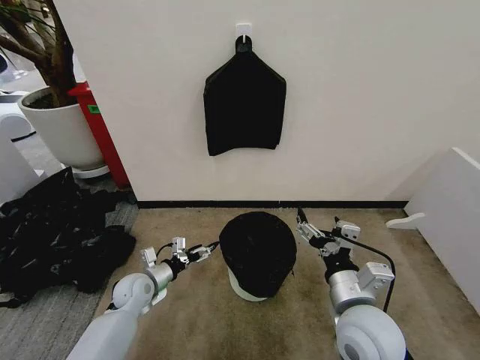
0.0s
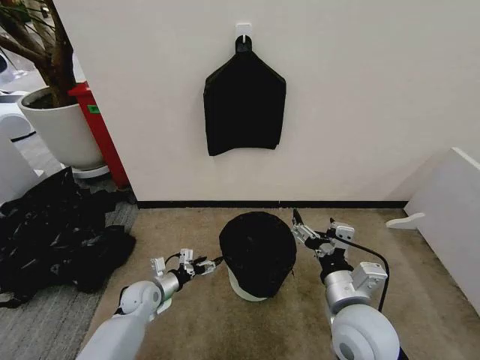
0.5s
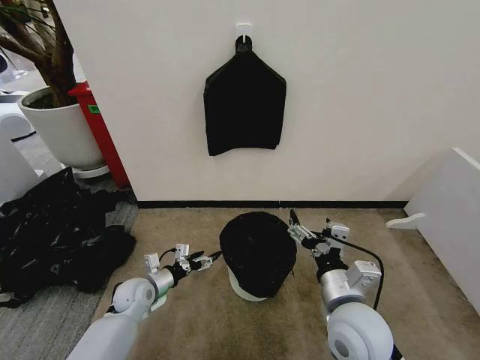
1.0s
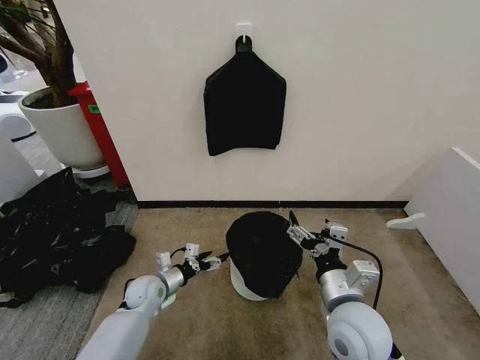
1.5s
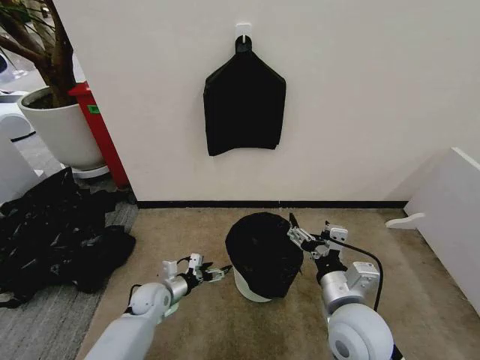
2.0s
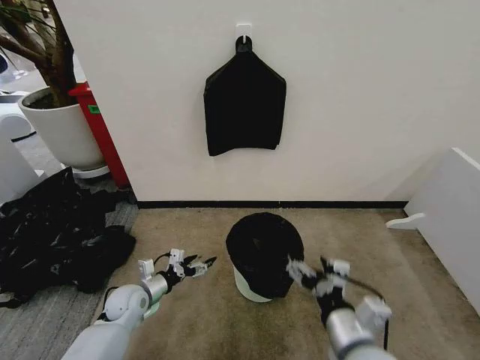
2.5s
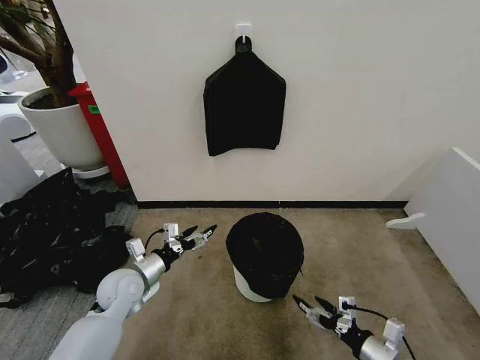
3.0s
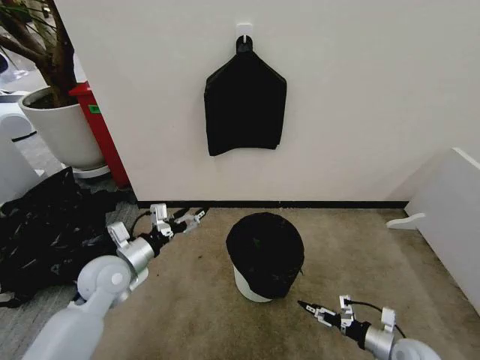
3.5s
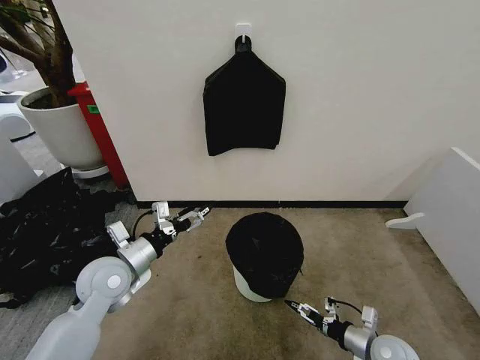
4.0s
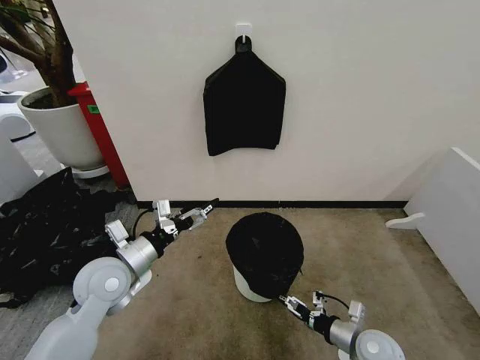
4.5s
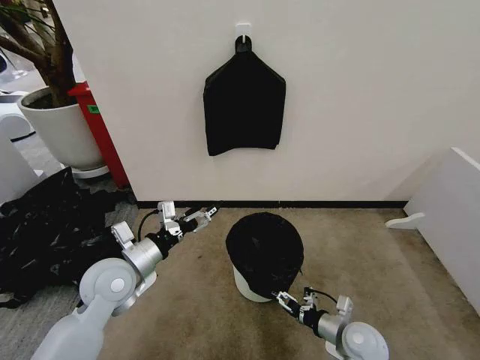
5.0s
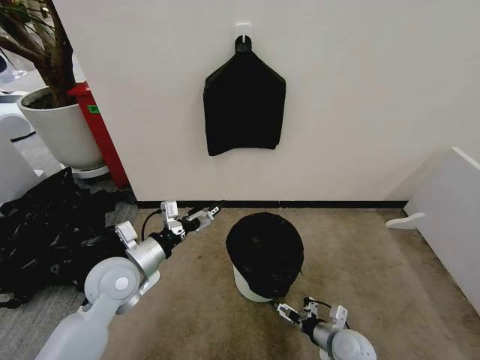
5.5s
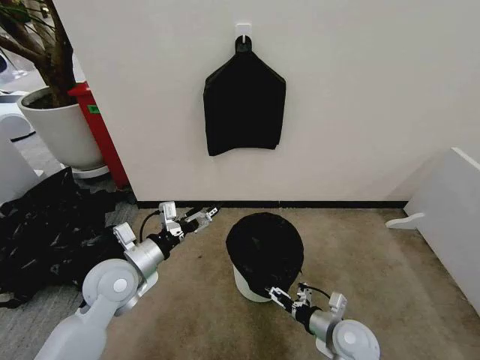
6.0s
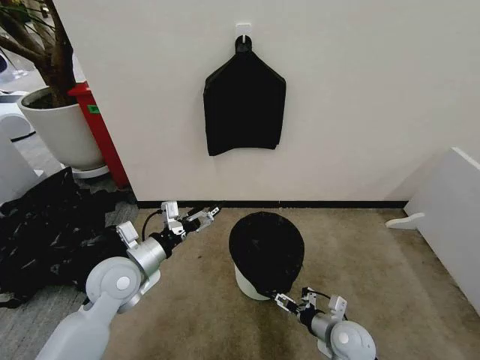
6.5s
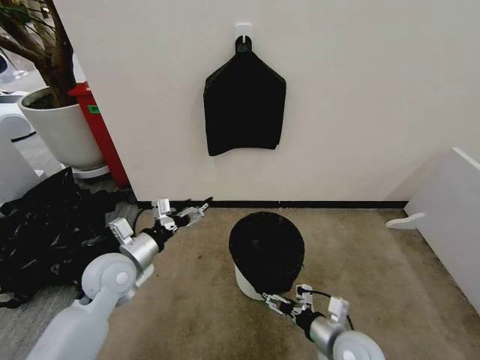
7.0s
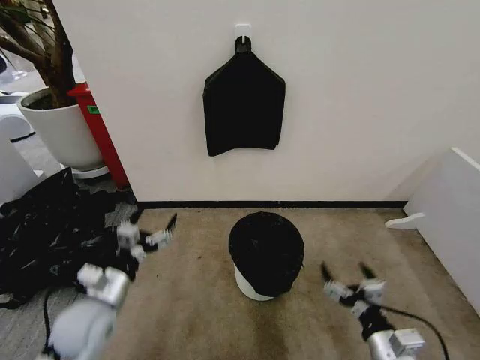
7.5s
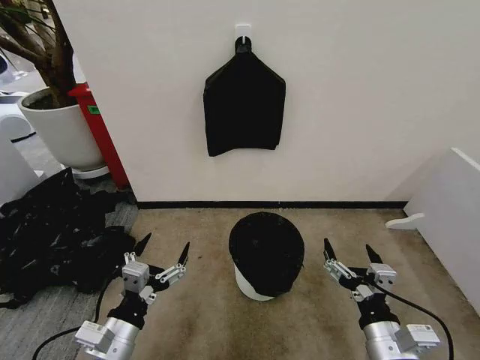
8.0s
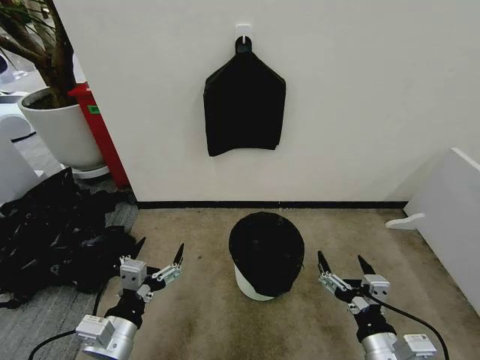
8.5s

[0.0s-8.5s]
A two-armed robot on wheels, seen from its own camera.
Task of the whole recording: Place the garbage bag over the trash bin.
0.0s to 2.0s: The left gripper shifts by some 5 cm.
2.0s to 4.0s: The right gripper moves downward and to the right, roughly 25 cm. The left gripper moves upward, approximately 20 cm.
4.0s to 6.5s: The right gripper heads to the left, covering roughly 10 cm.
6.5s to 8.5s: The right gripper travels upward and backward by about 20 cm, while the left gripper moves backward, roughly 15 cm.

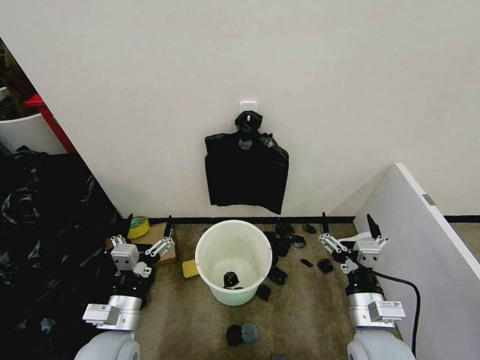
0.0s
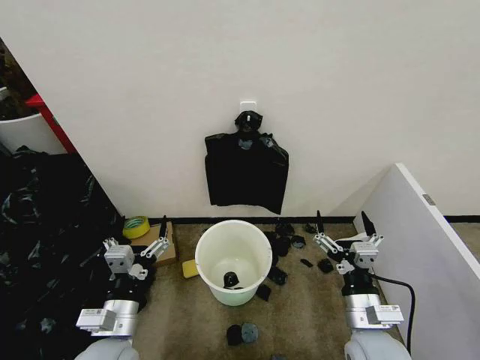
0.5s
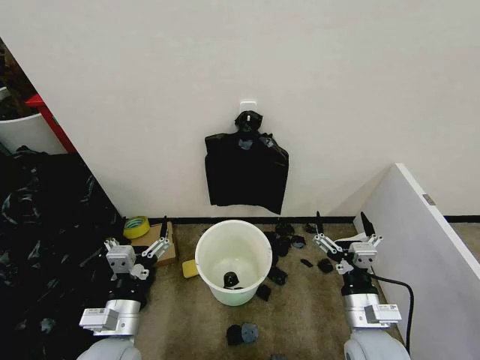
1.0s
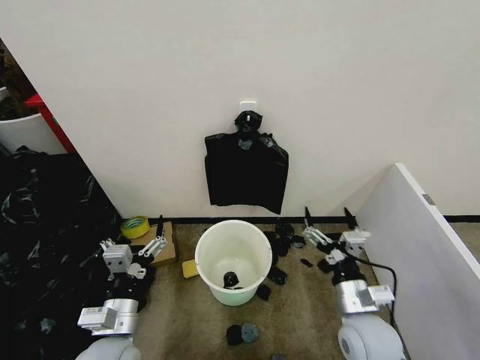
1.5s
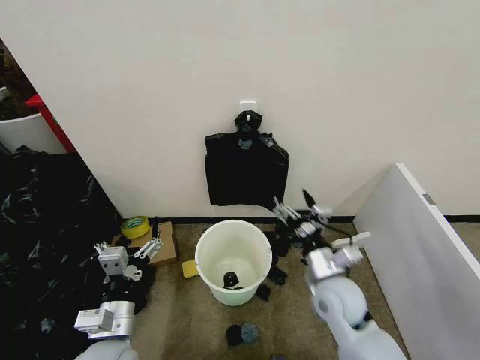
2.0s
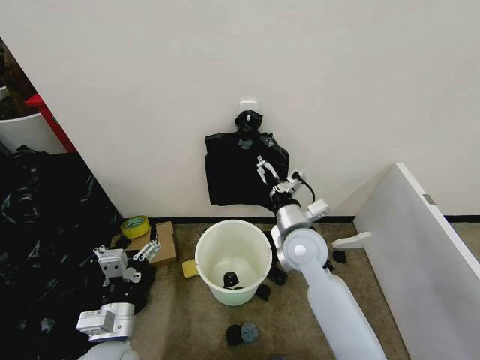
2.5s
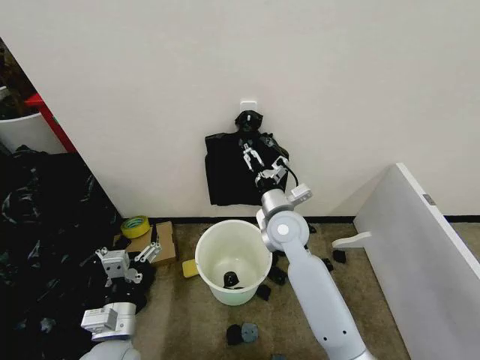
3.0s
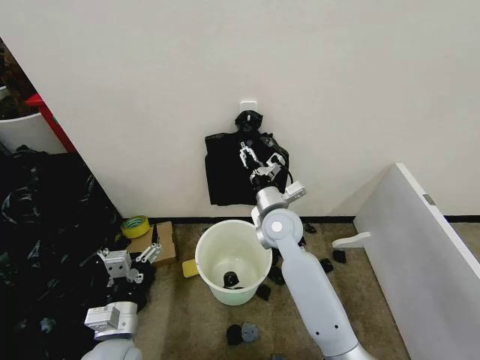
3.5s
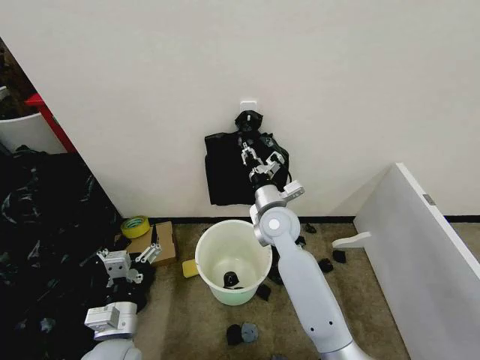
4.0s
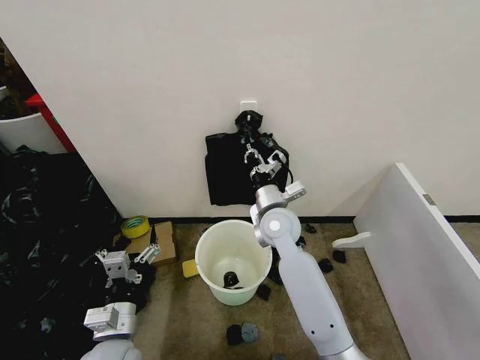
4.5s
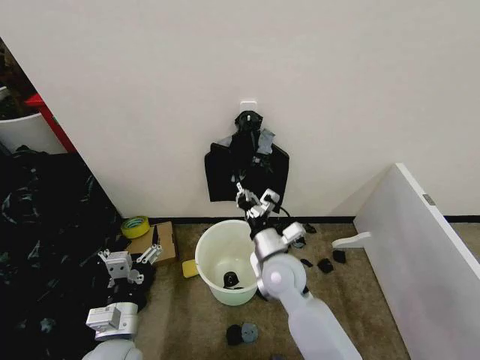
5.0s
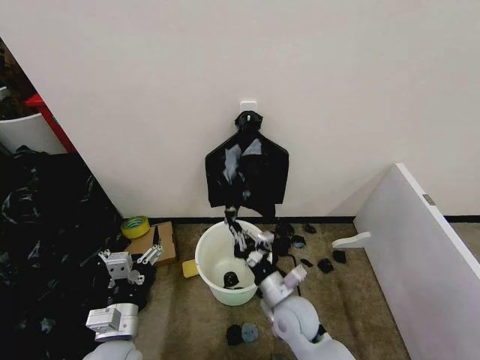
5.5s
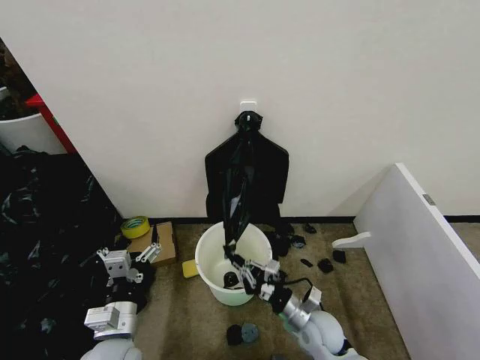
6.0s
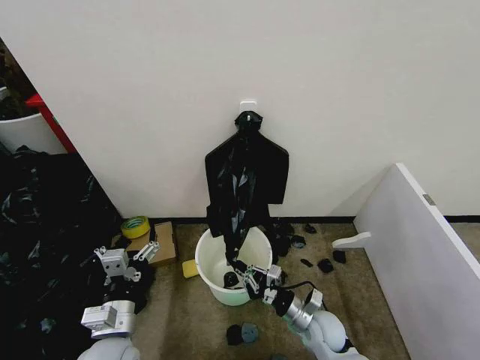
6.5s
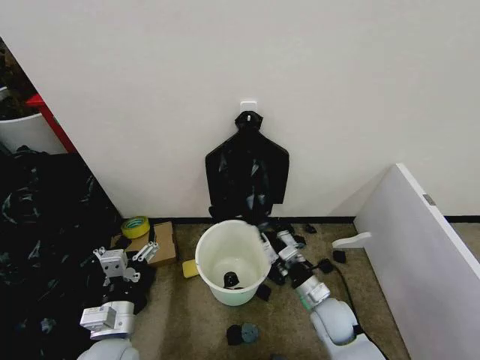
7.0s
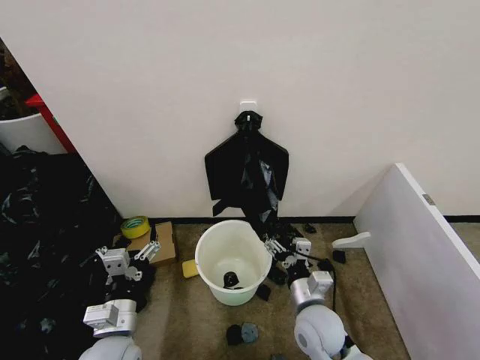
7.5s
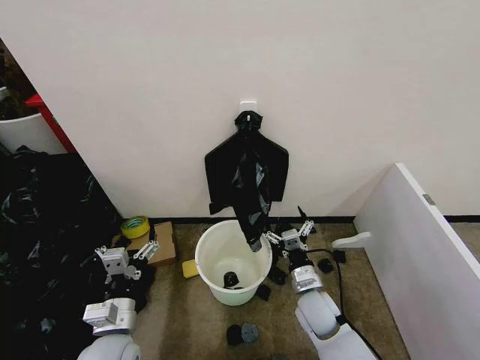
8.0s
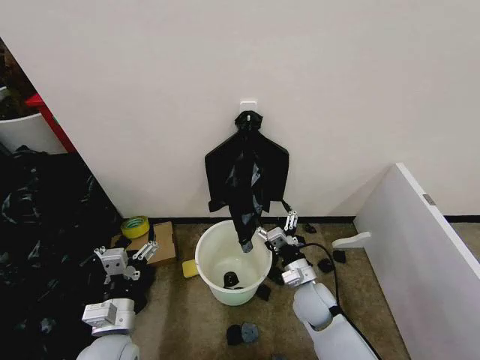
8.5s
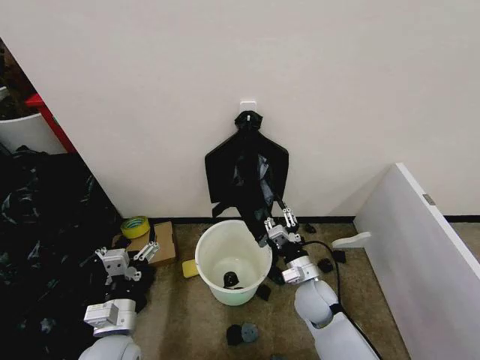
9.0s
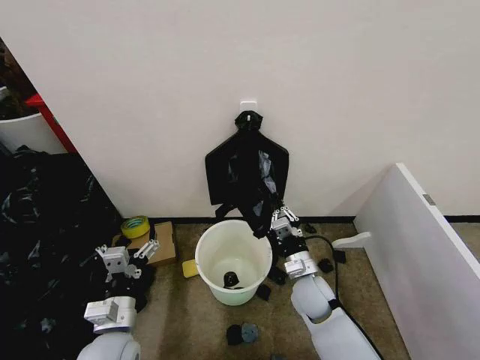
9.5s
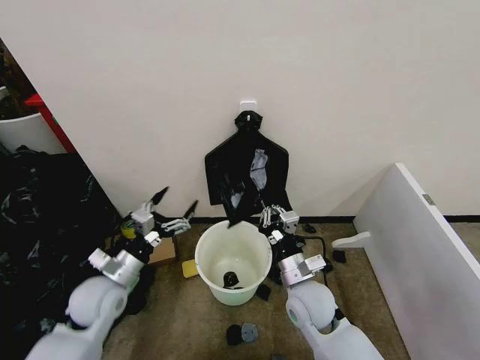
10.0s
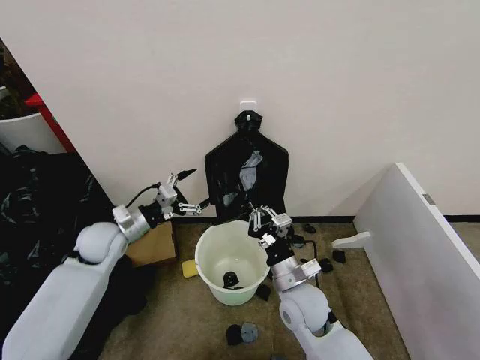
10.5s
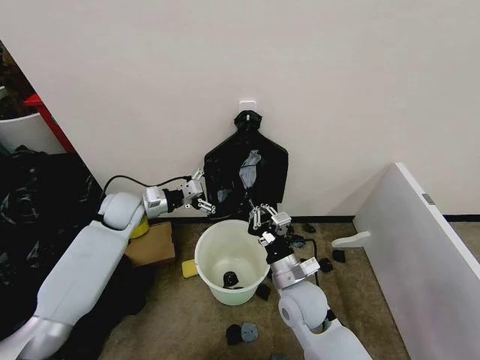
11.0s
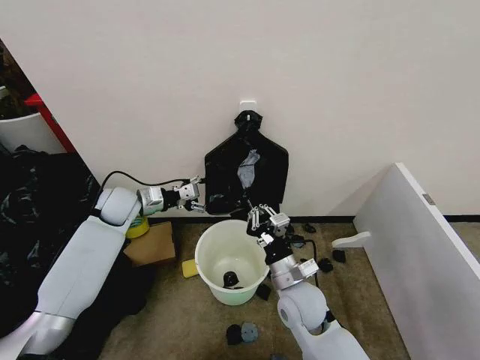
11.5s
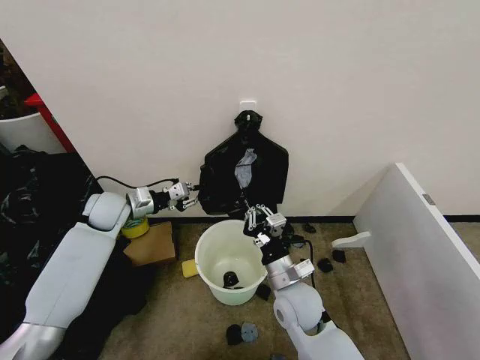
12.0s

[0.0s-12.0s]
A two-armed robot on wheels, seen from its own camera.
Task of the whole recording: Place the garbage bag over the trash bin.
2.0s to 4.0s: The right gripper heads forward and to the left, covering some 20 cm, and closes.
4.0s to 6.0s: The right gripper moves downward, backward and to the right, approximately 25 cm.
6.0s to 8.0s: The right gripper goes upward and returns, roughly 5 cm each way, and opens.
8.0s to 10.0s: The right gripper goes some 10 cm upward, and closes up; the left gripper moves forward and to the left, some 10 cm.
10.0s to 12.0s: The left gripper goes approximately 20 cm forward, and closes.

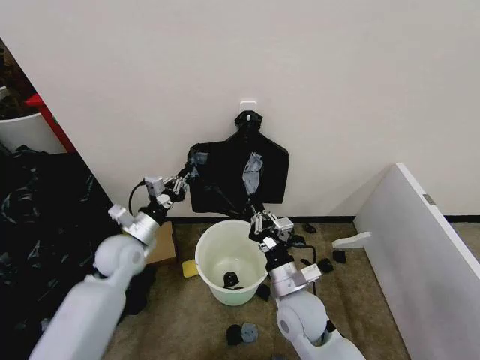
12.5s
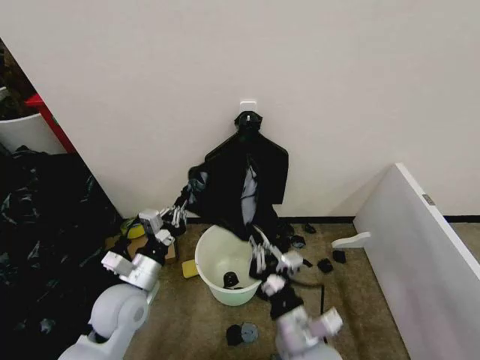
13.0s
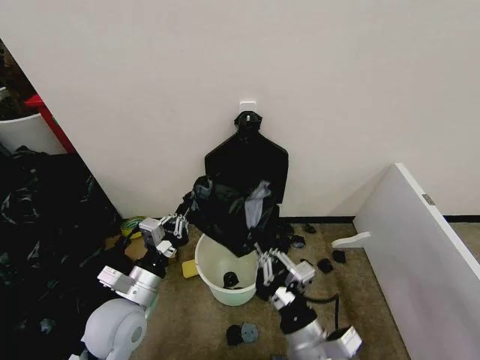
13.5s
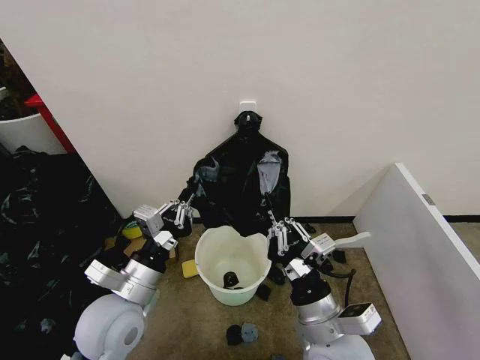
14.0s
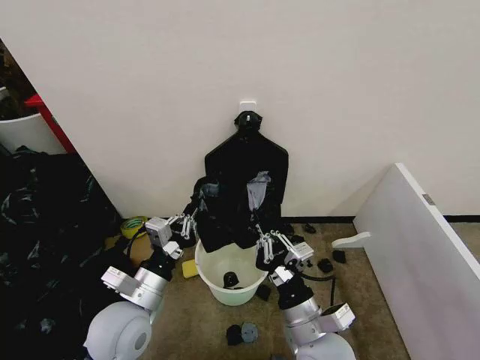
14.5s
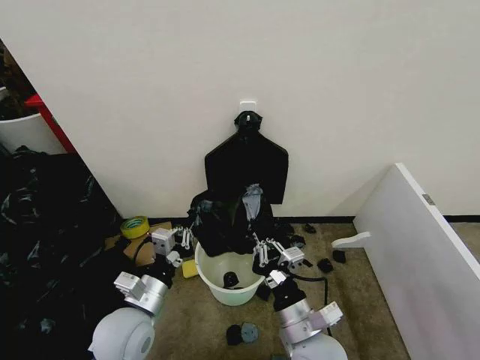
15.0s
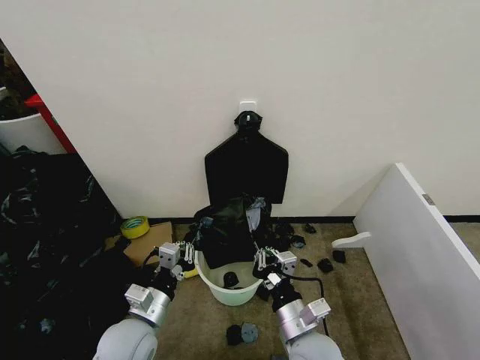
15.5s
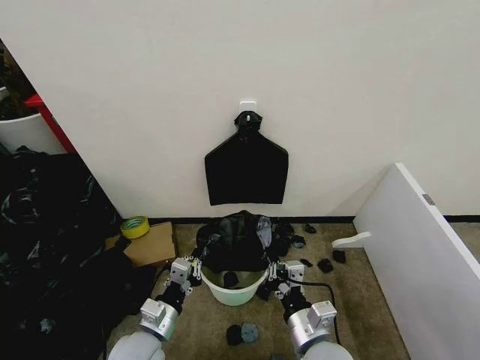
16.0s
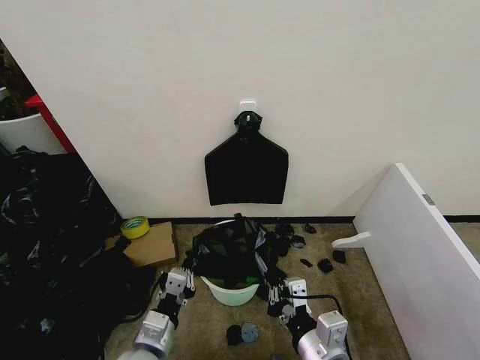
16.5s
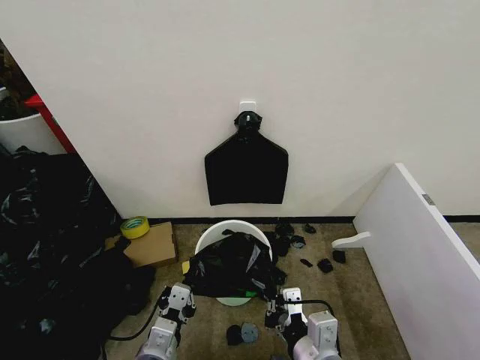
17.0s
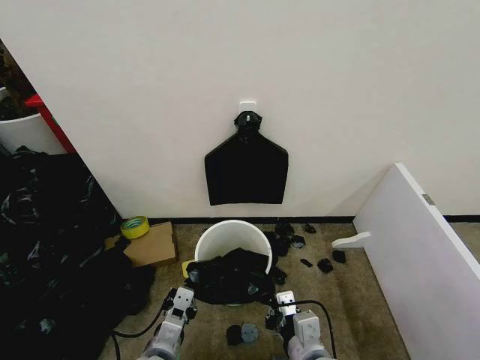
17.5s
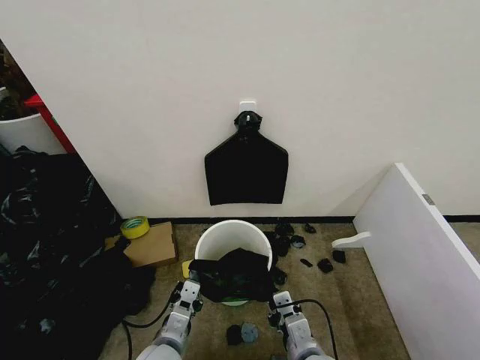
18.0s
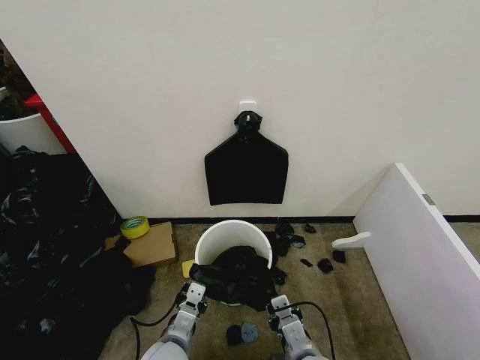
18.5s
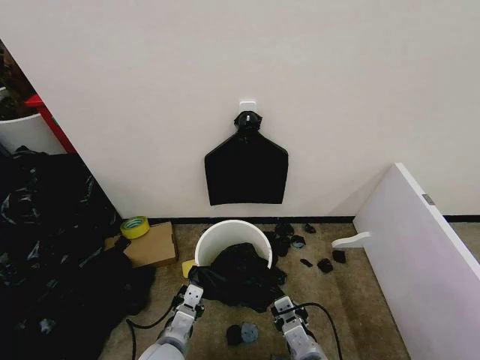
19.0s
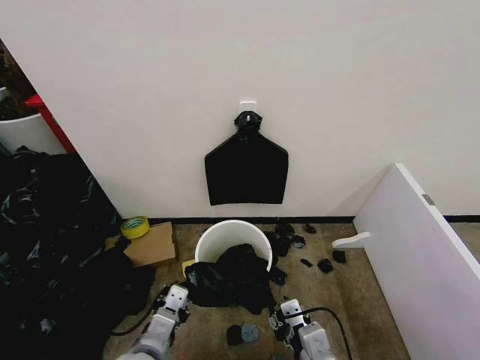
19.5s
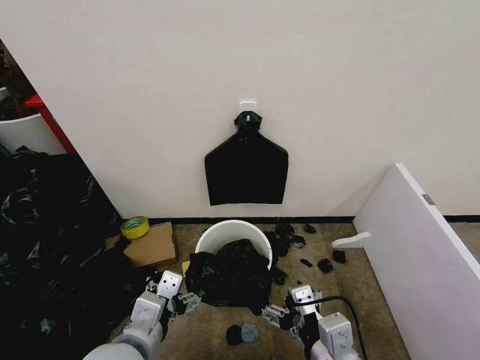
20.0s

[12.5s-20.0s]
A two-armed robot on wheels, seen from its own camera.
Task of the whole recording: Place the garbage bag over the trash bin.
12.5s to 14.5s: The left gripper shifts some 15 cm backward and to the right. The right gripper goes approximately 10 cm backward.
14.5s to 16.5s: The right gripper is displaced backward by some 5 cm. Meanwhile the left gripper is displaced downward and backward by approximately 10 cm.
16.5s to 18.0s: The right gripper travels downward by approximately 10 cm.
18.0s to 20.0s: Both grippers move upward, about 15 cm. The left gripper opens up. Meanwhile the right gripper opens its fingers.
